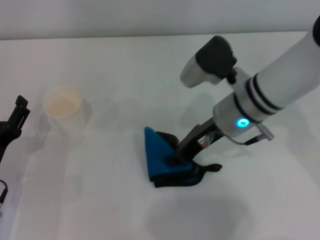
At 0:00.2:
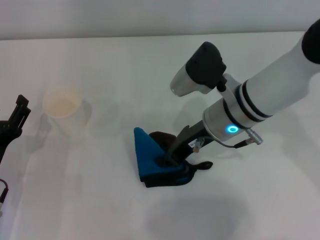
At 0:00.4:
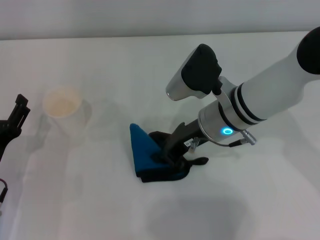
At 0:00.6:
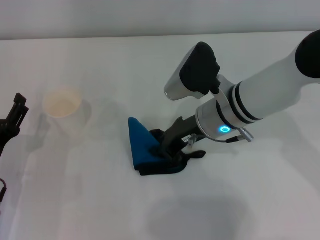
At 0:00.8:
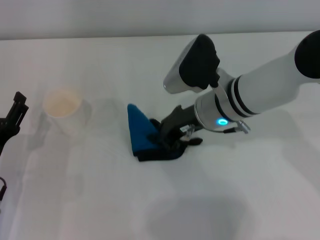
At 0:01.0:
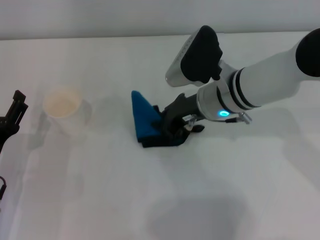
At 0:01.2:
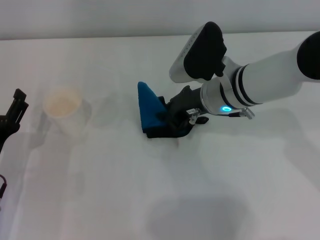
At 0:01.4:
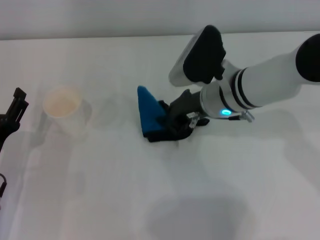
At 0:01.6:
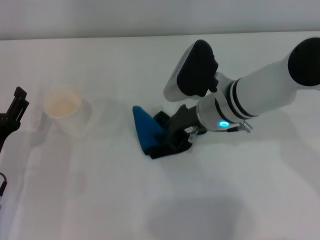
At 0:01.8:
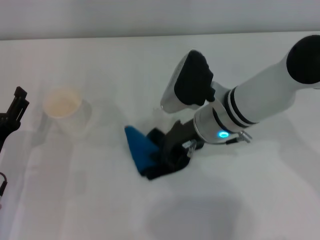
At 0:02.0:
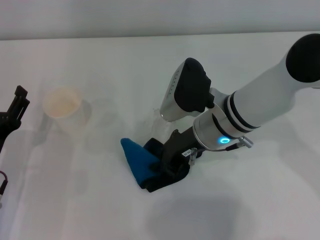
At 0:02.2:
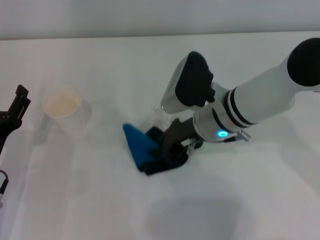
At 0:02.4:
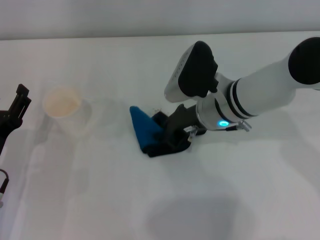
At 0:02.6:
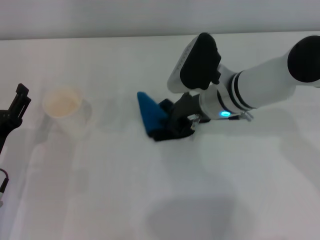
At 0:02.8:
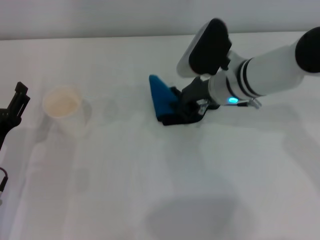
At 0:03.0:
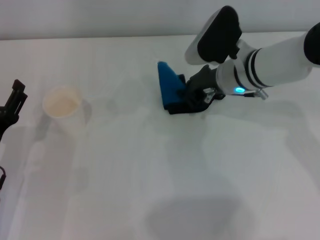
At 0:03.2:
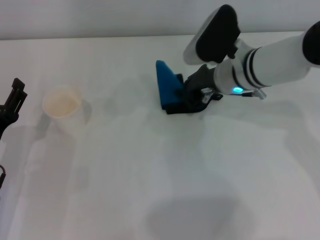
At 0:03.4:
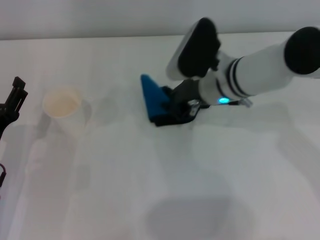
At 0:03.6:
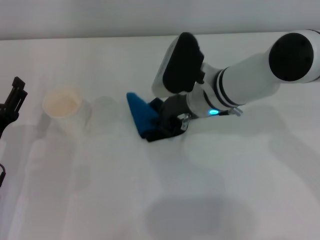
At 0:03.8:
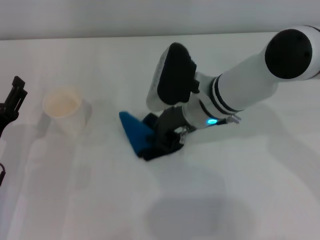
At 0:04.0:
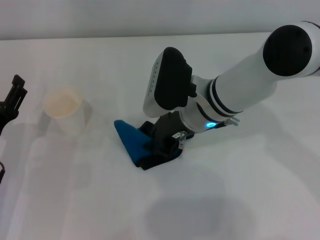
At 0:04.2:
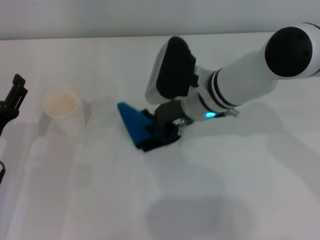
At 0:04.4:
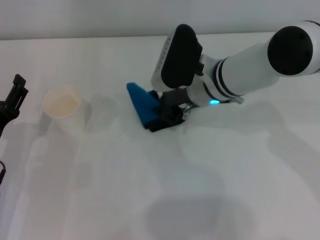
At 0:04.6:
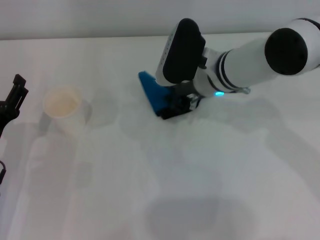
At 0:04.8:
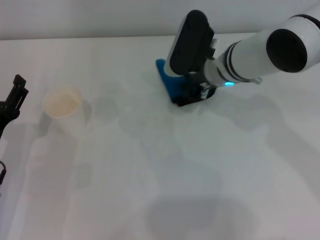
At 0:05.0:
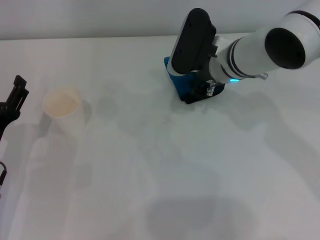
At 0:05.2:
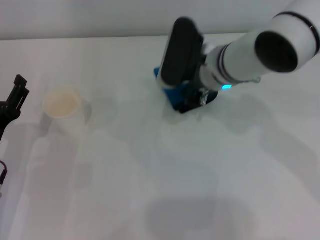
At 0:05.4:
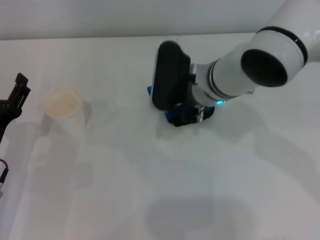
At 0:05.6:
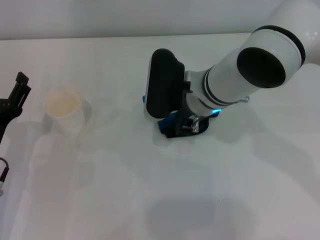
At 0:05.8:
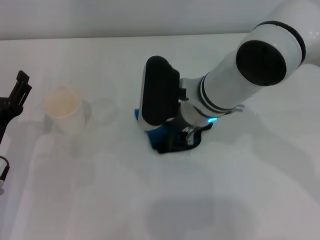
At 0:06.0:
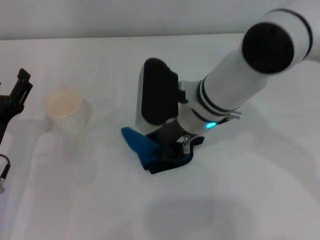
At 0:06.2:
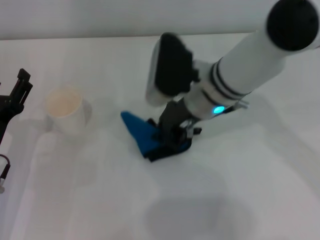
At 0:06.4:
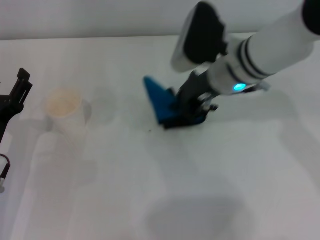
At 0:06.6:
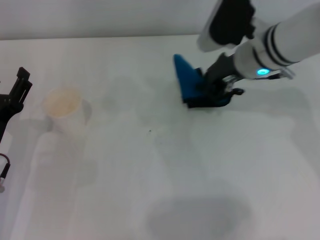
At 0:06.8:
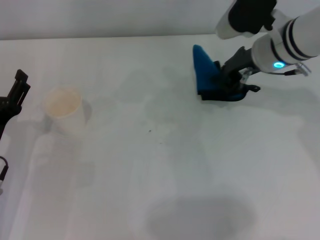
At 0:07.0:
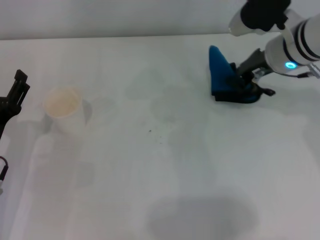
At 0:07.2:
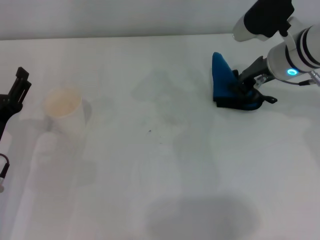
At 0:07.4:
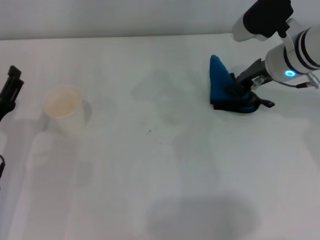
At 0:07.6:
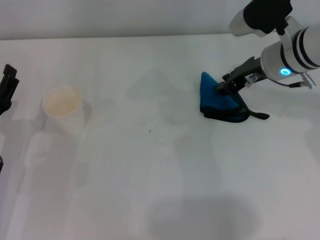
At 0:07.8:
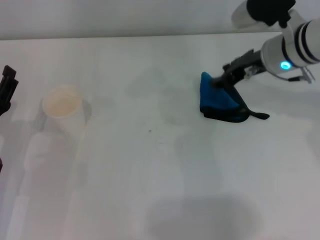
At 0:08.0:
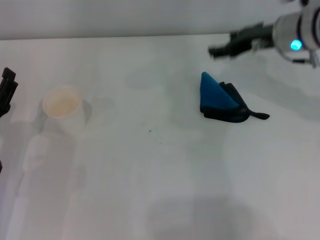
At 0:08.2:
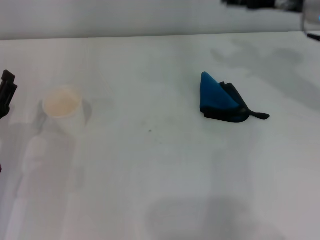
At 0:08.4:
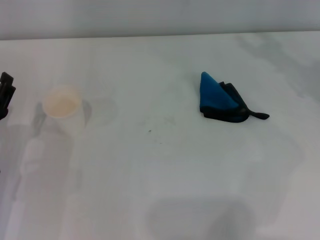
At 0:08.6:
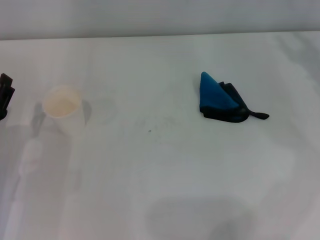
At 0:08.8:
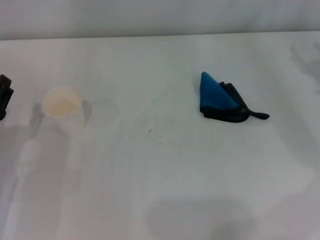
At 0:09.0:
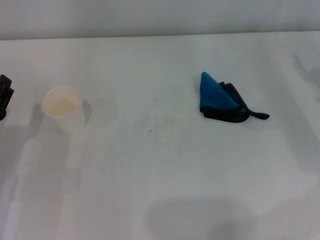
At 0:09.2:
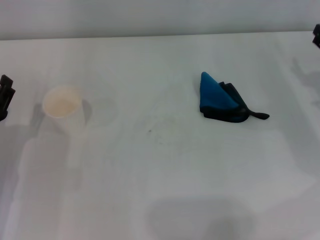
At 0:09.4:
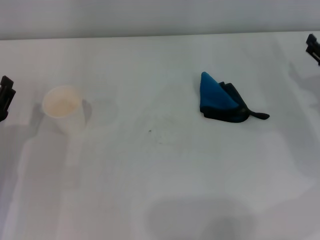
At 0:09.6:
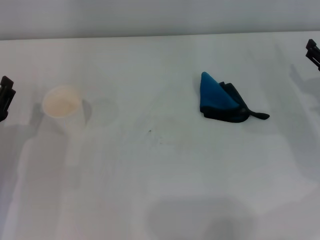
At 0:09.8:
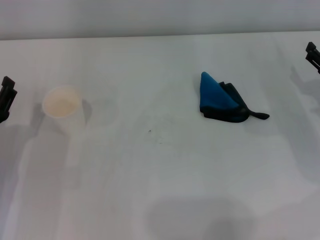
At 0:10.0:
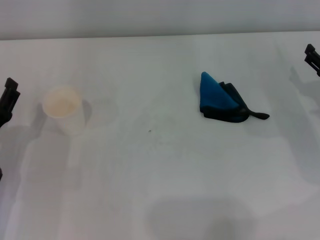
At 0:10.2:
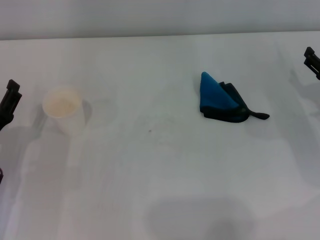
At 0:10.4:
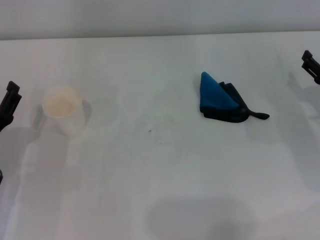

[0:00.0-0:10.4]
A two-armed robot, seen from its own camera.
Step, 0:00.0 to 0:06.4: Wipe the stains off the table with the right gripper.
Step, 0:06.6 to 0:07.4: Place the rag on the table with the right gripper.
0:01.4 to 0:03.0: There are only small adjustments of the grippers.
0:03.0 to 0:04.4: The right gripper moves to the left, roughly 5 cm.
0:04.4 to 0:06.0: The right gripper ends up some 5 cm from where it was.
0:06.0 to 0:07.4: The right gripper travels to the right by about 15 cm.
0:07.4 to 0:09.0: The right gripper shifts some 20 cm to the right, backward and downward, and opens up.
0:09.0 to 0:10.4: The right gripper shifts by about 5 cm.
